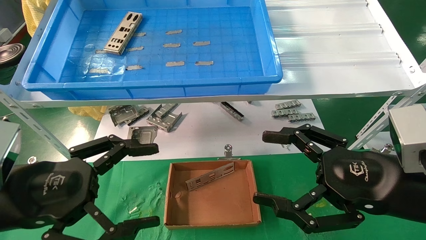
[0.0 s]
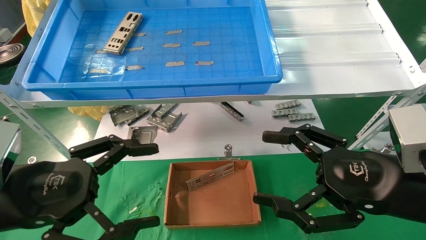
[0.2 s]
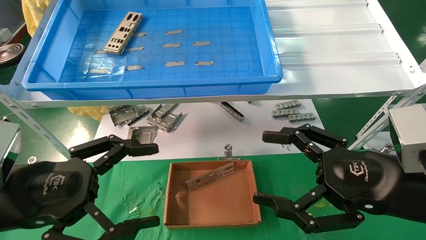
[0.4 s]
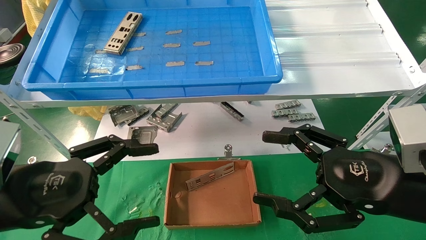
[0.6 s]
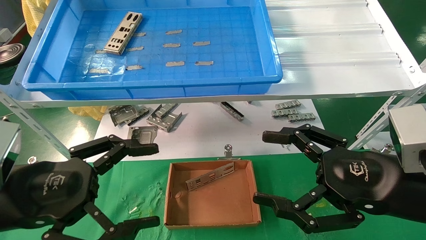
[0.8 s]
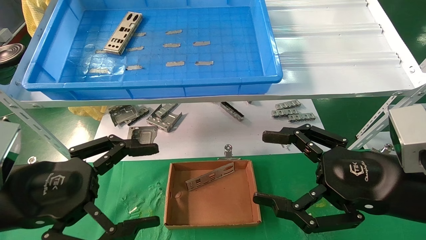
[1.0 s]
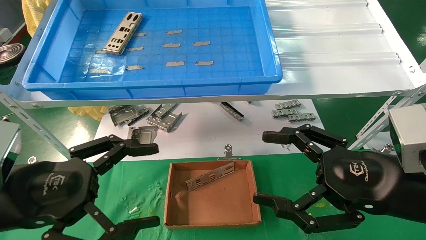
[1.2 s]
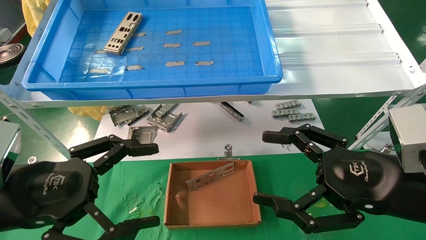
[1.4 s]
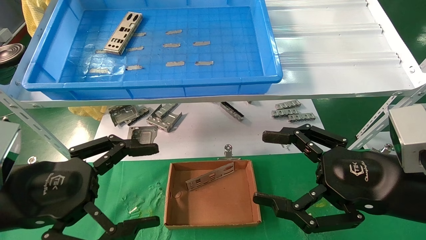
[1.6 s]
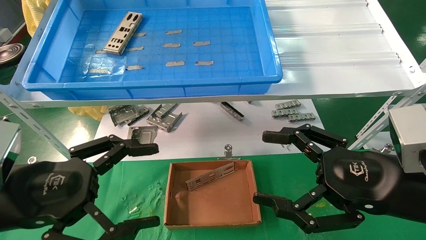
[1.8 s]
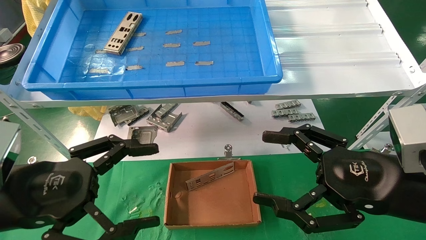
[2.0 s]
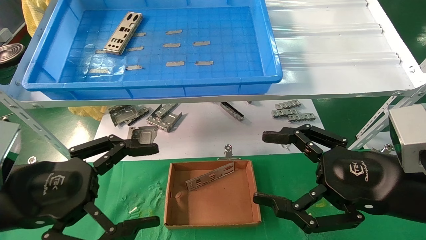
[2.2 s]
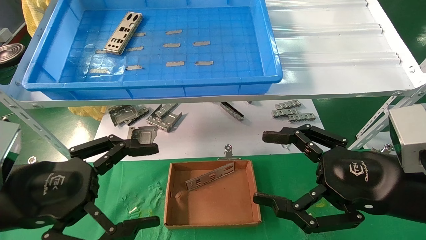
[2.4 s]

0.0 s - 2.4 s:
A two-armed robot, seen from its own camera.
Task of the whole recording: pick up the parts on the tray and put them in the cardboard box.
0.0 s - 2.4 s: Neither gripper changes place.
